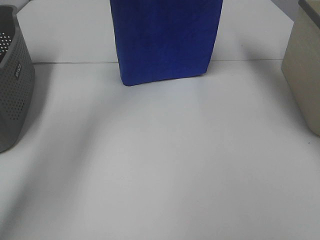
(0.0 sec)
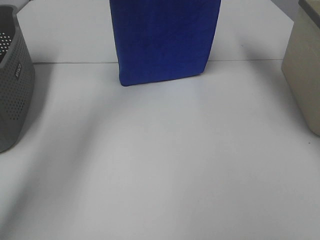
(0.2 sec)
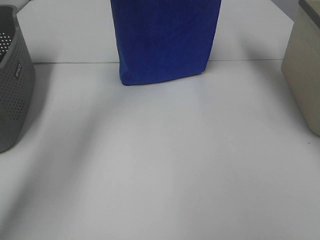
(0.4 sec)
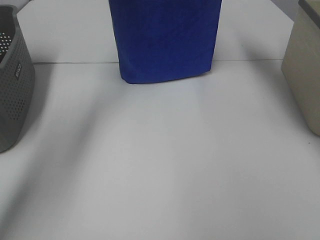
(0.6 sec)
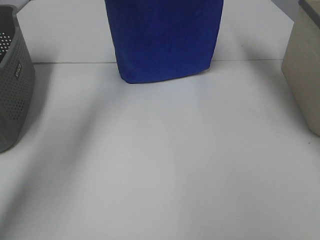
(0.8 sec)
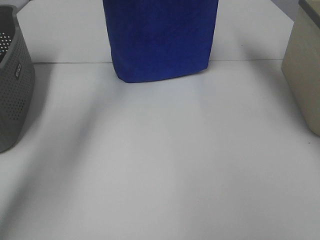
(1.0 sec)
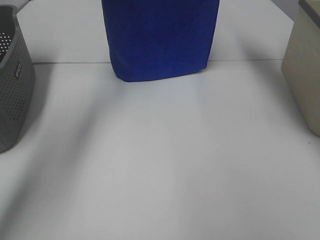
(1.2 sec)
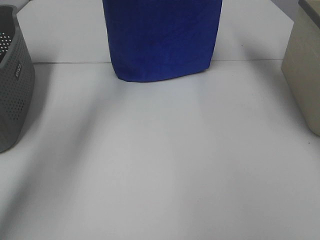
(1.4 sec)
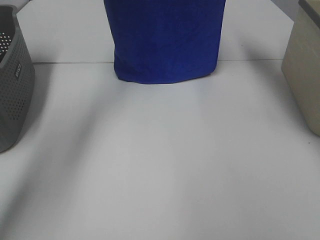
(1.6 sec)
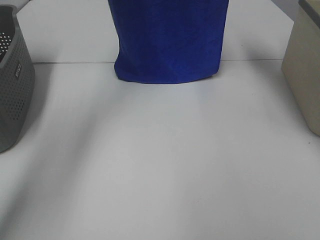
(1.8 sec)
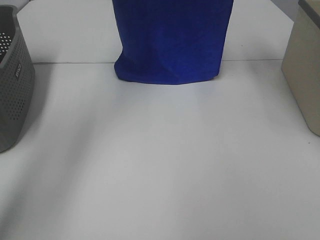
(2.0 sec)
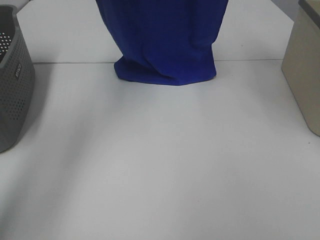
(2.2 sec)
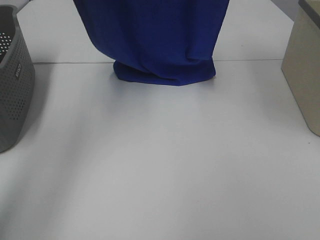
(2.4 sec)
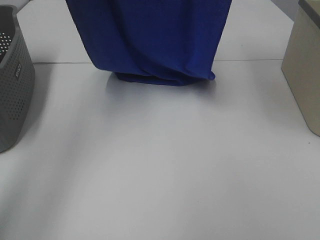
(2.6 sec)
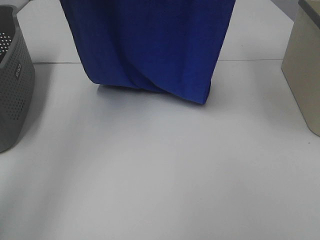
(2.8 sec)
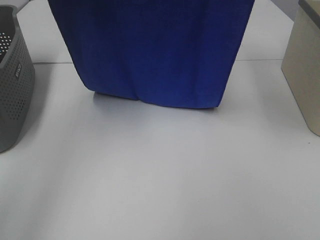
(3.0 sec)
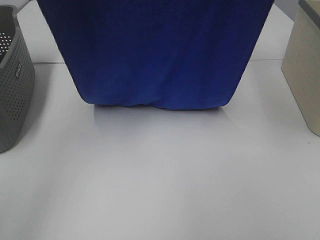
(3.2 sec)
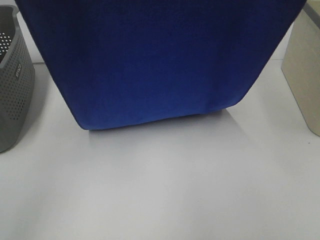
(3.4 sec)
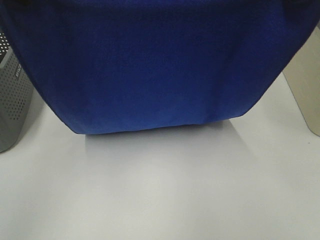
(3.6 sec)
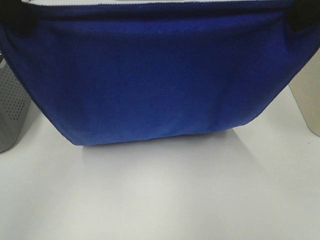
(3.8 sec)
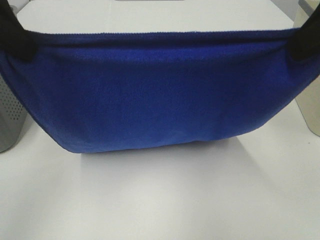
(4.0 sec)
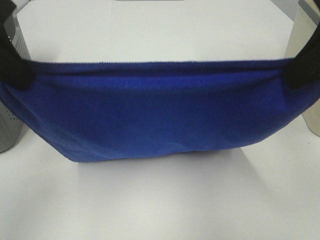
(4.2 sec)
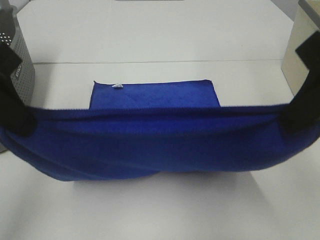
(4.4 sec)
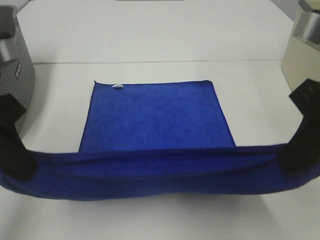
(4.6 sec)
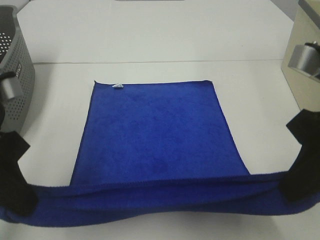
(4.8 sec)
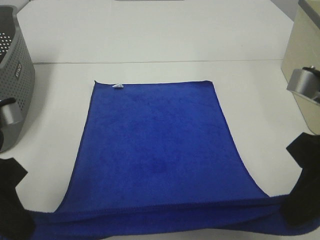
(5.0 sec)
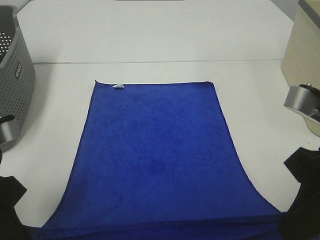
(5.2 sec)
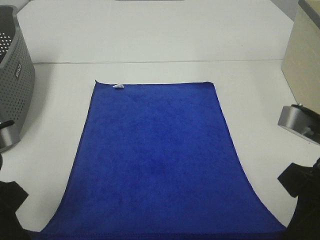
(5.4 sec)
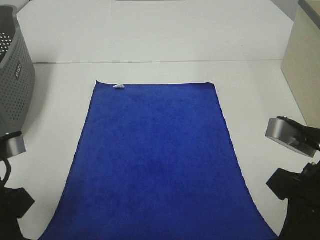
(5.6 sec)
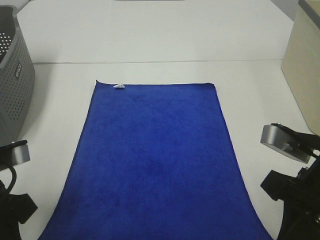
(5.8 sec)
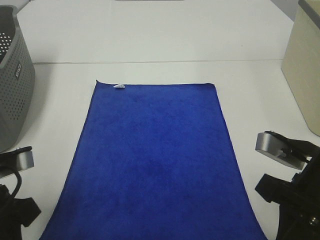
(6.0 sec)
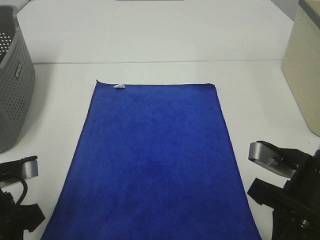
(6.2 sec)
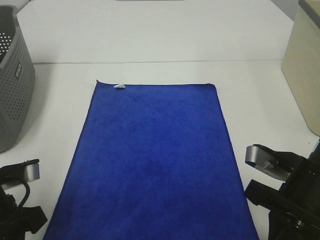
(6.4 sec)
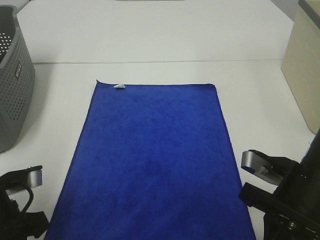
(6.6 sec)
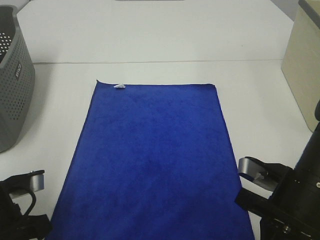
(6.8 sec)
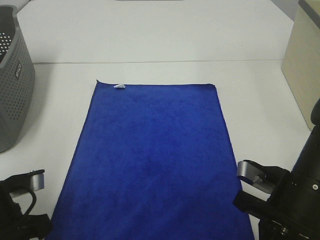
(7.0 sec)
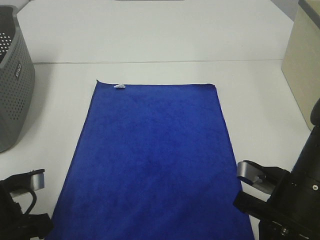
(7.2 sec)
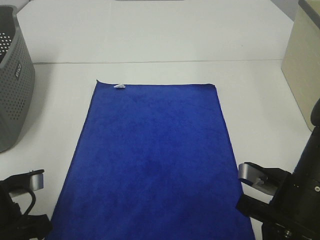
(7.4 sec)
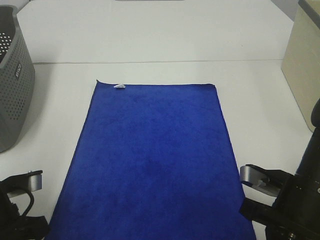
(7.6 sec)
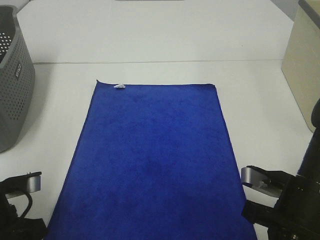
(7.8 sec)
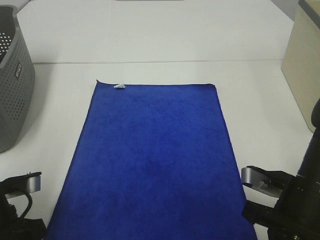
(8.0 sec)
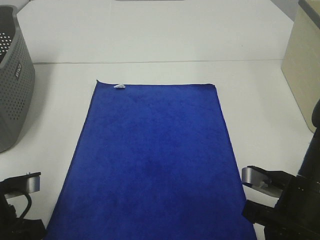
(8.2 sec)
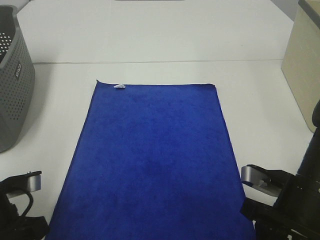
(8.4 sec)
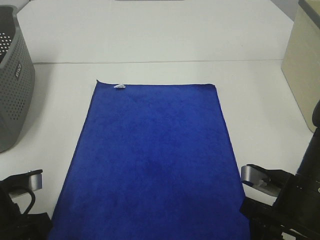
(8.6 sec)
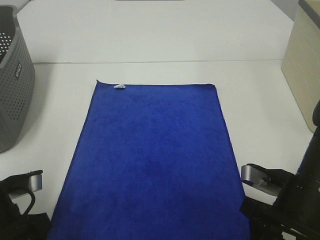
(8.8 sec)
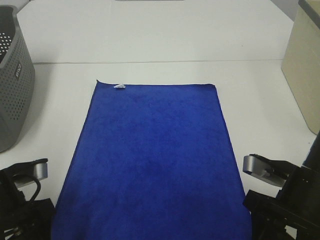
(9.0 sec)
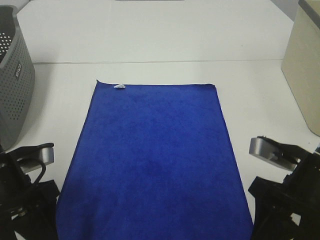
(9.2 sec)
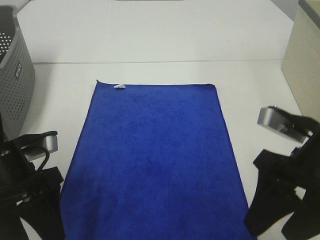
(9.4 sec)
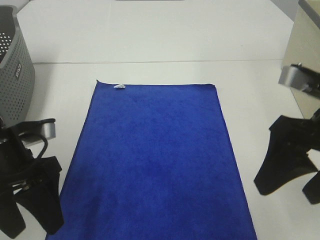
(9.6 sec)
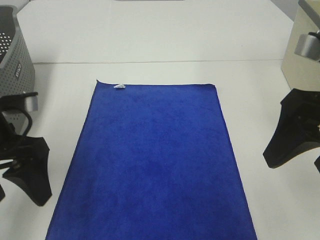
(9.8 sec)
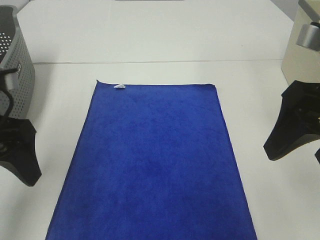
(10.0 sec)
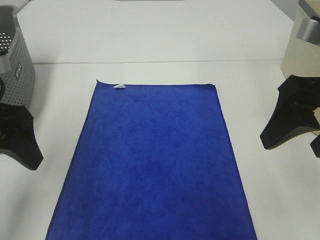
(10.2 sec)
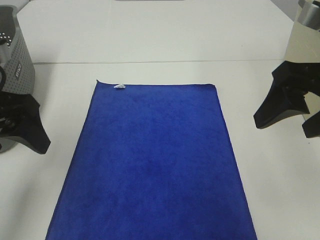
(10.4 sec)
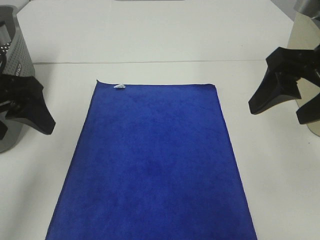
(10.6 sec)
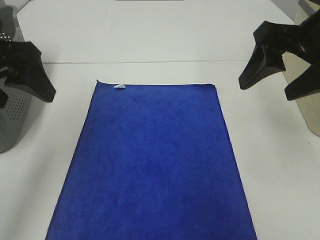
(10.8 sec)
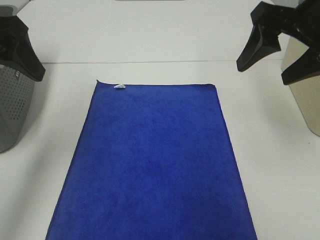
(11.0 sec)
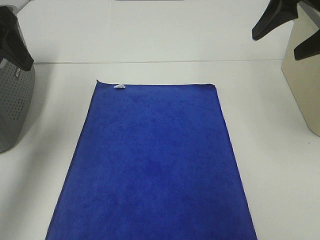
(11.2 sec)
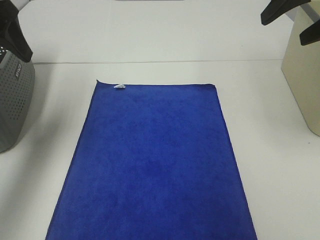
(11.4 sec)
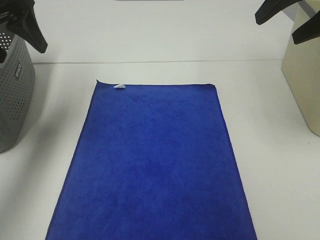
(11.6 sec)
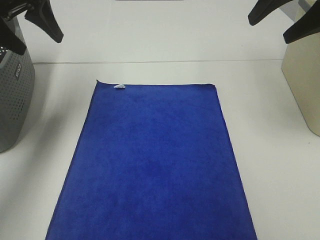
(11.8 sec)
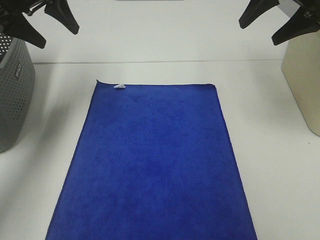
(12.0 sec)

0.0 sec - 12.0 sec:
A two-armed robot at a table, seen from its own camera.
Task of the whole recording: Remove the towel and place it.
Step, 0.0 sec - 3.6 sec: Left hand: spread the blue towel flat on the table.
Step, 0.0 sec - 3.6 sec: Right hand: spread the blue towel flat on the table.
0.0 sec - 1.6 sec: The grippers move only a little.
1.6 sec - 3.0 sec: Both grippers travel together backward, roughly 20 cm.
3.0 sec - 4.4 sec: The two grippers go approximately 20 cm downward and backward.
4.4 sec - 6.0 sec: The two grippers go approximately 15 cm downward.
6.0 sec - 7.6 sec: The right gripper travels downward by some 5 cm.
7.6 sec - 9.0 sec: The left gripper opens; the right gripper opens up.
9.0 sec - 10.4 sec: The left gripper shifts approximately 15 cm upward and forward; the right gripper shifts about 15 cm upward.
10.4 sec - 12.0 sec: Both grippers move forward, roughly 20 cm.

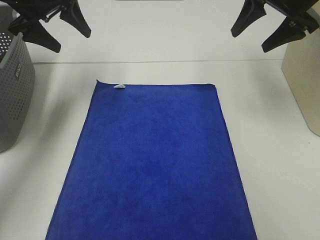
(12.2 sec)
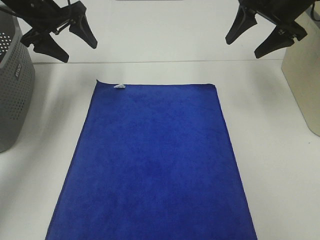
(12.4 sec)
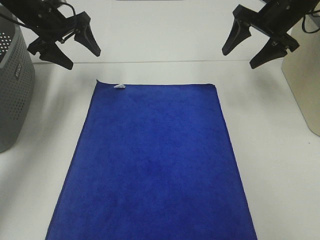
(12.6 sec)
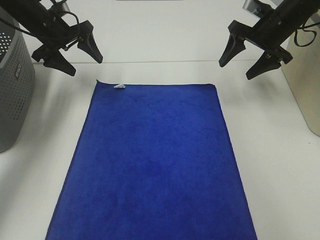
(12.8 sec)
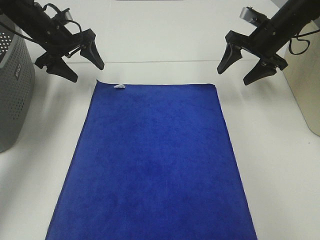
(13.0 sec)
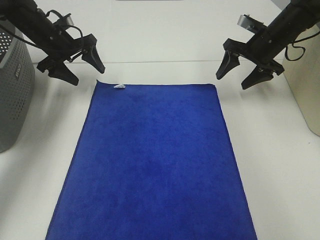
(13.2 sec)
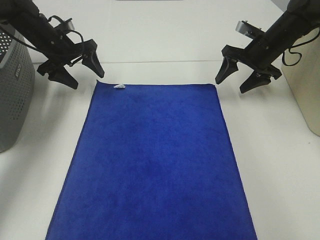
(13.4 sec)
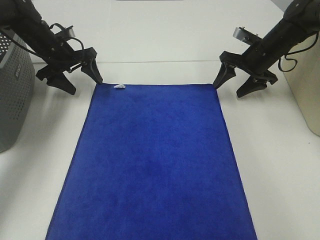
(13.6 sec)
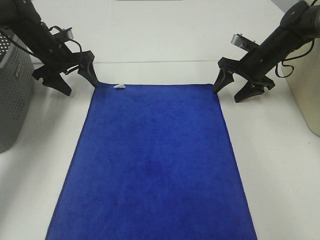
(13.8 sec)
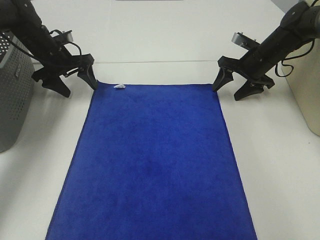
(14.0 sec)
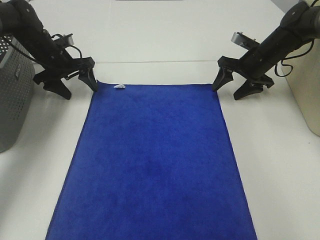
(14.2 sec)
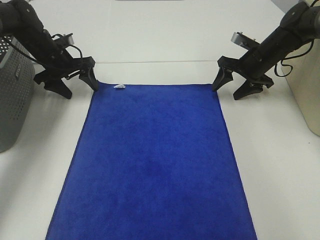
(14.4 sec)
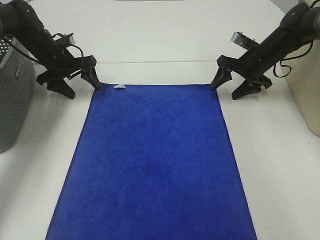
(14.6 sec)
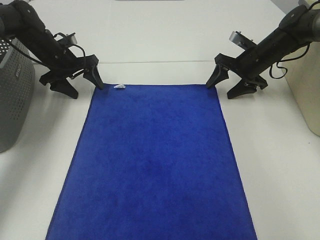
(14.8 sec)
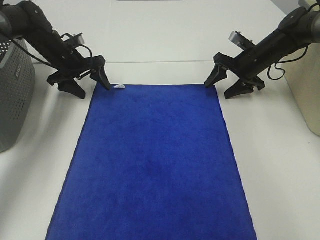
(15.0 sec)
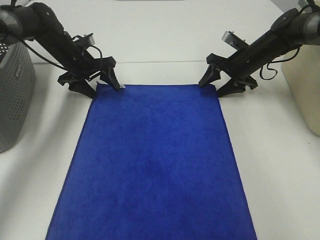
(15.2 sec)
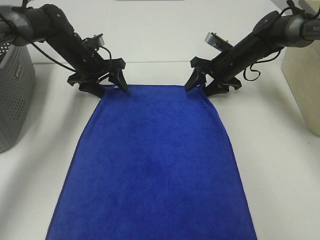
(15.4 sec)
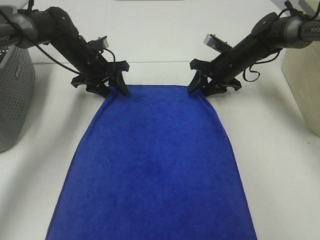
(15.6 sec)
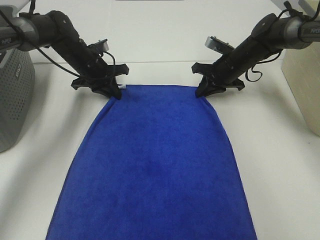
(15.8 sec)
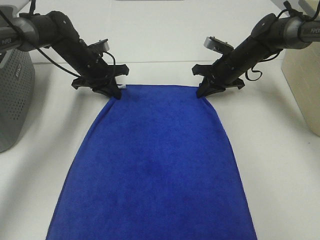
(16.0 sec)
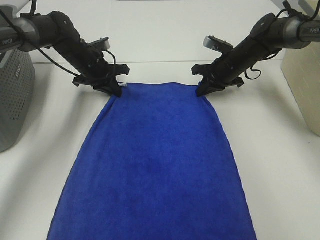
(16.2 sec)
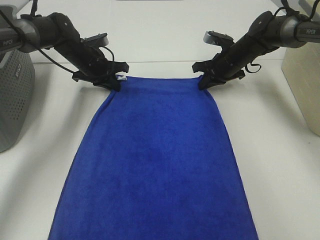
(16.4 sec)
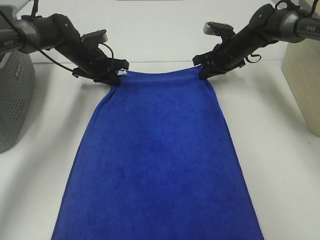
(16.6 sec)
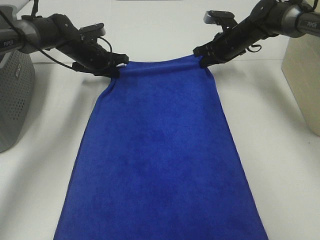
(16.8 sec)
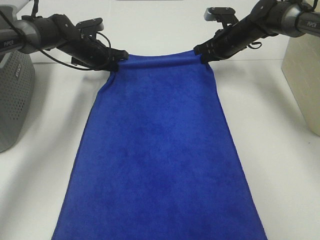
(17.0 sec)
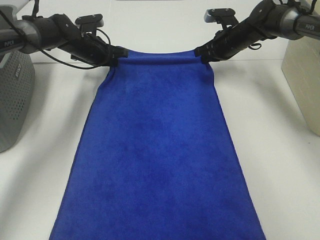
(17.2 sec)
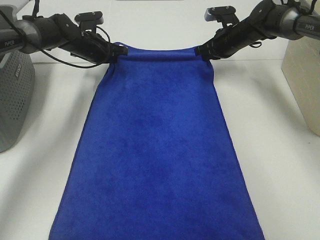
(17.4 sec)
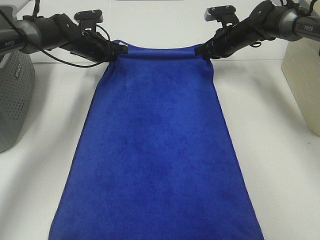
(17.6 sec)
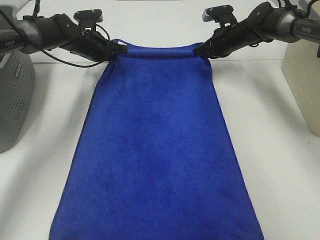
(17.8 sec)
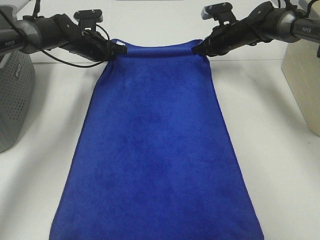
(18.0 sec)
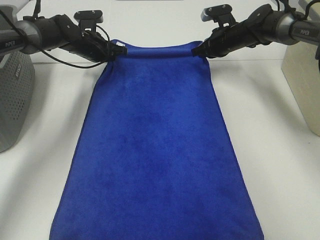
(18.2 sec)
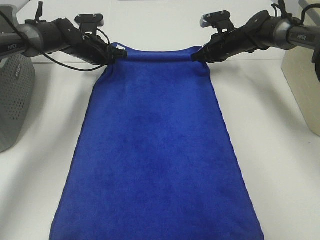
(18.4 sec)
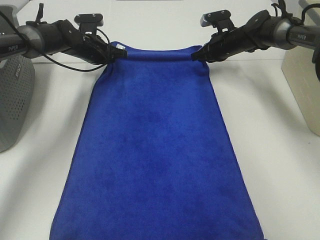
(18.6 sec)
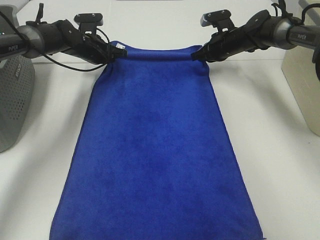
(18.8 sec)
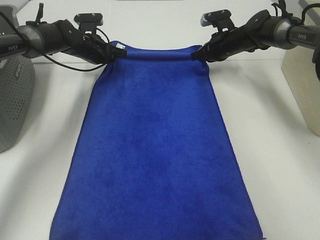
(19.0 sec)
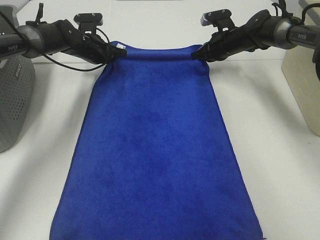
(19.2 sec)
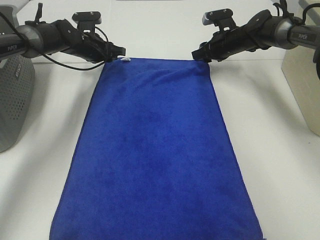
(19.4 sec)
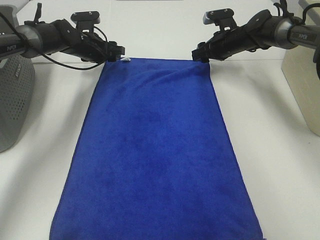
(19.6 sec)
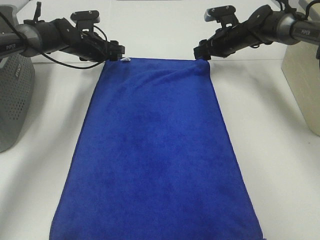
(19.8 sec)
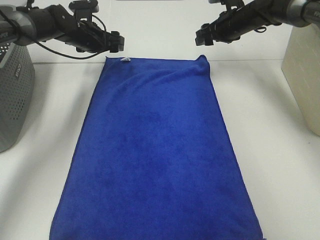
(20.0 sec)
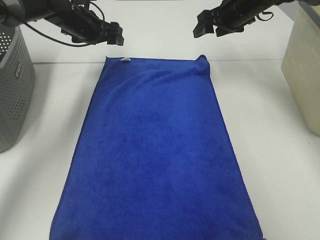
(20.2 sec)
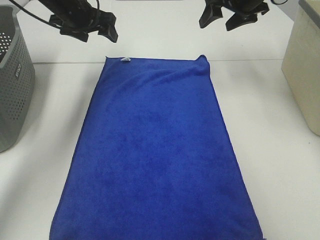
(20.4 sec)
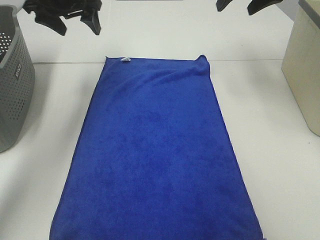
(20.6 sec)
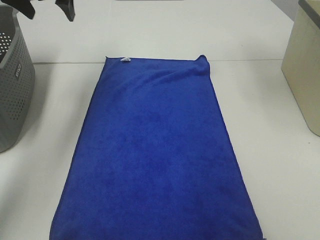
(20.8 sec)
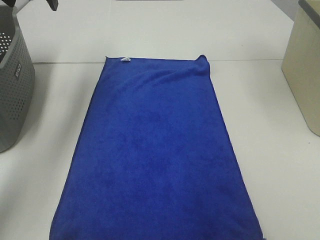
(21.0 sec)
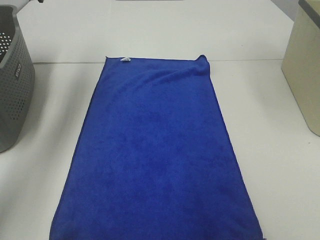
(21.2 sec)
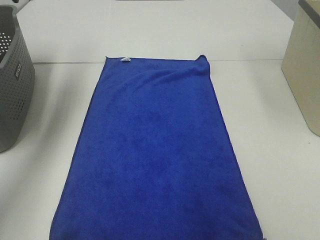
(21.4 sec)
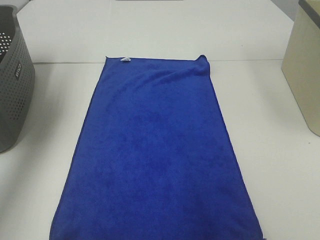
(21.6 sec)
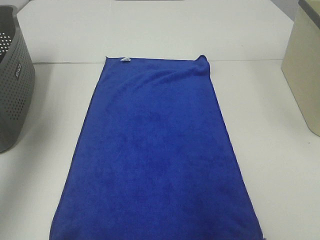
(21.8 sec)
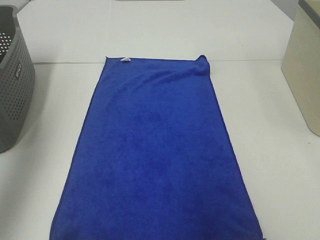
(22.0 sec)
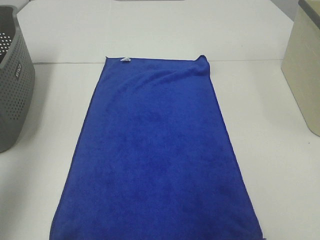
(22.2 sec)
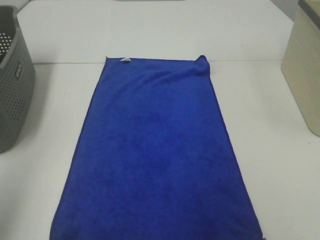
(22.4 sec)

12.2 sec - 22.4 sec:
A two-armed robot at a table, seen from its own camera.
Task of the whole recording: Remove the towel and place it.
12.2 sec - 13.6 sec: Both grippers move downward, roughly 15 cm.
13.6 sec - 15.2 sec: The left gripper changes place by roughly 5 cm.
15.2 sec - 16.6 sec: The left gripper closes up; the right gripper closes its fingers.
18.0 sec - 19.4 sec: The left gripper opens, while the right gripper opens up.
19.4 sec - 21.0 sec: The two grippers go approximately 30 cm upward and backward. The left gripper opens up.
21.0 sec - 22.4 sec: The left gripper heads backward, covering some 35 cm.
